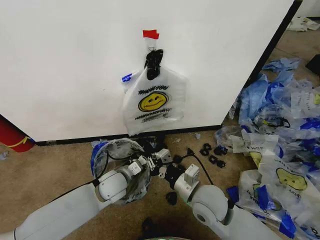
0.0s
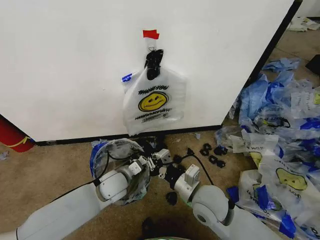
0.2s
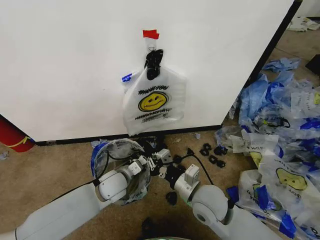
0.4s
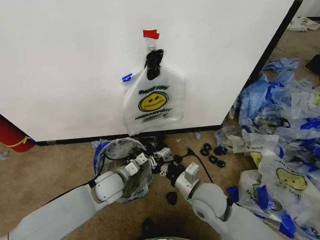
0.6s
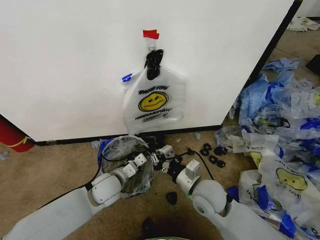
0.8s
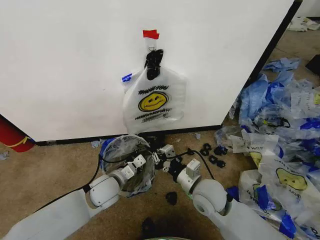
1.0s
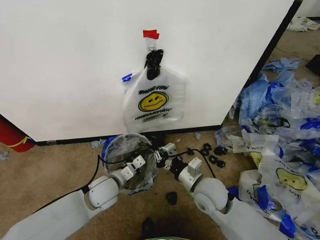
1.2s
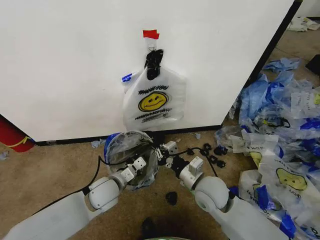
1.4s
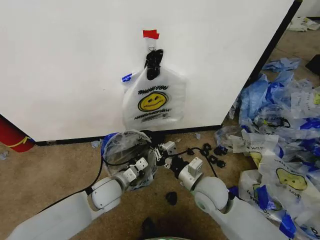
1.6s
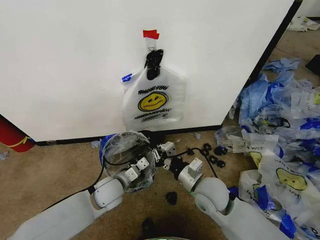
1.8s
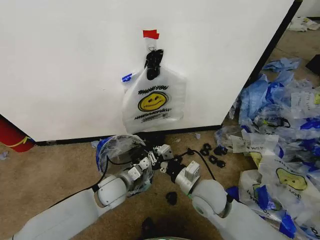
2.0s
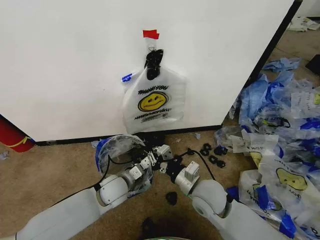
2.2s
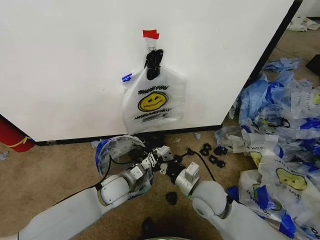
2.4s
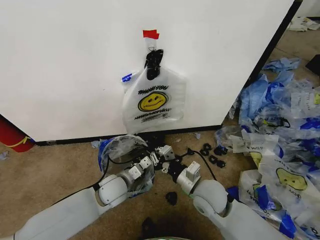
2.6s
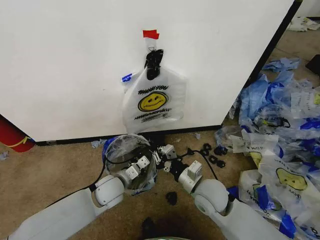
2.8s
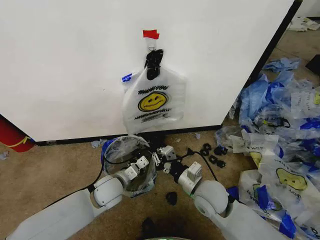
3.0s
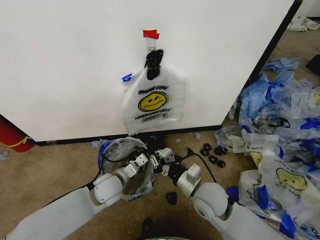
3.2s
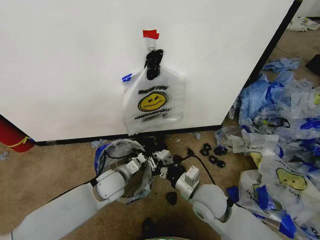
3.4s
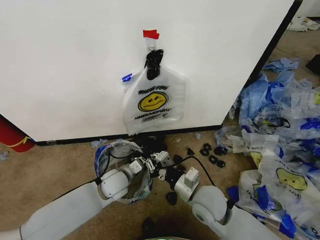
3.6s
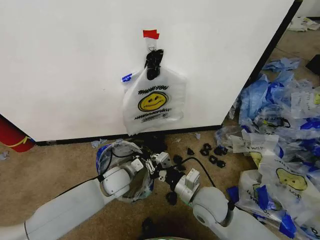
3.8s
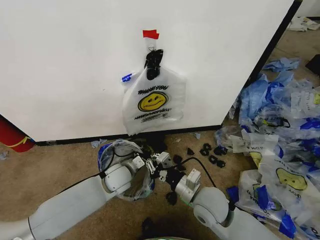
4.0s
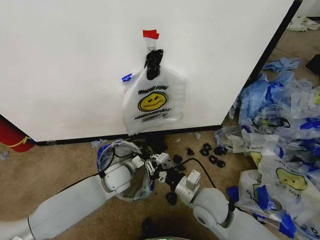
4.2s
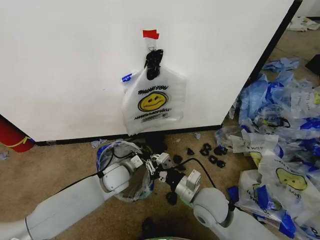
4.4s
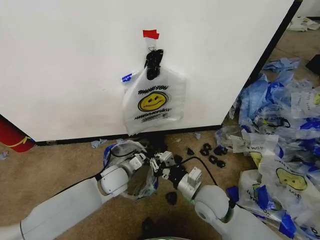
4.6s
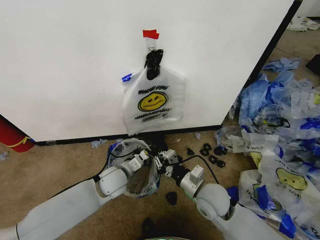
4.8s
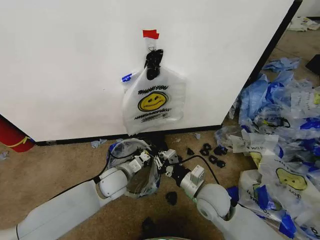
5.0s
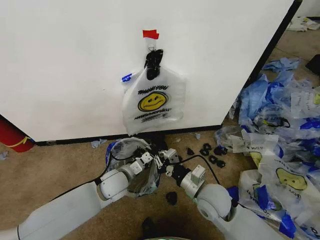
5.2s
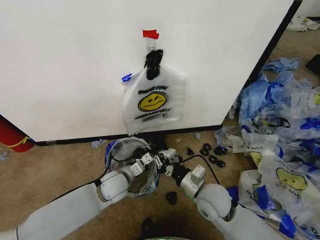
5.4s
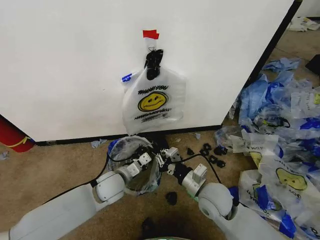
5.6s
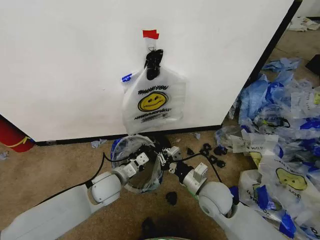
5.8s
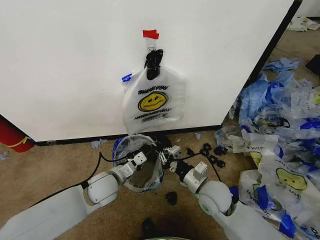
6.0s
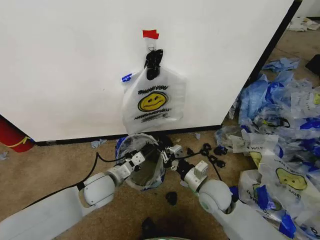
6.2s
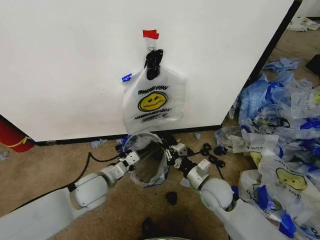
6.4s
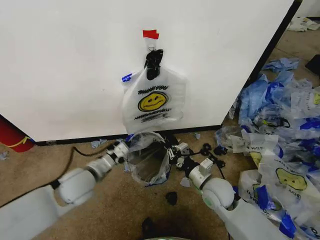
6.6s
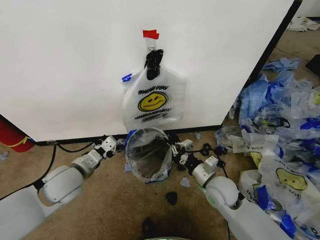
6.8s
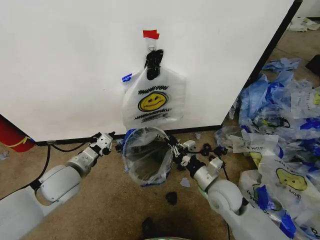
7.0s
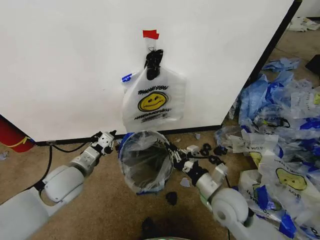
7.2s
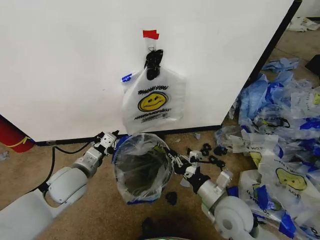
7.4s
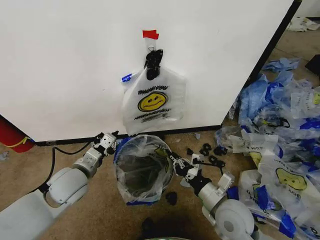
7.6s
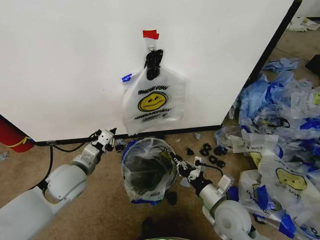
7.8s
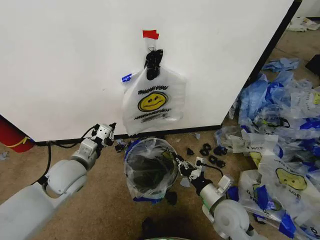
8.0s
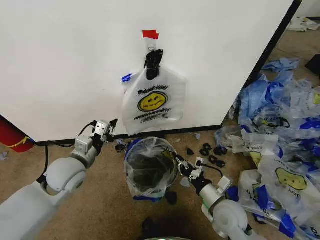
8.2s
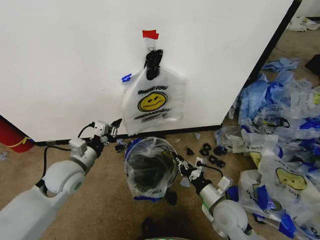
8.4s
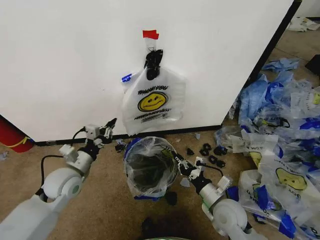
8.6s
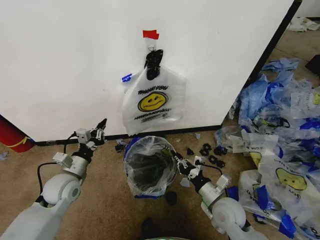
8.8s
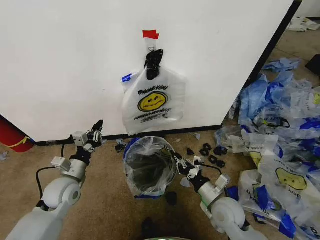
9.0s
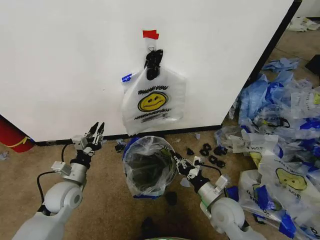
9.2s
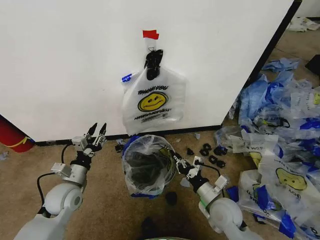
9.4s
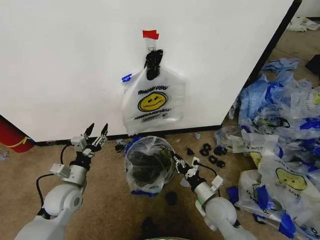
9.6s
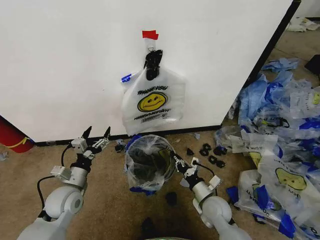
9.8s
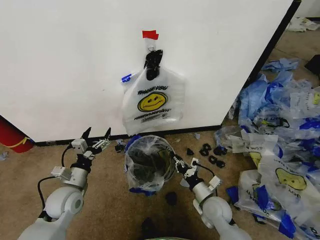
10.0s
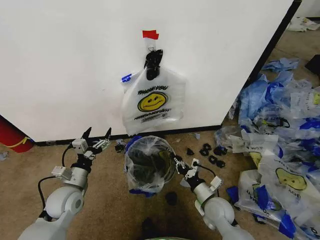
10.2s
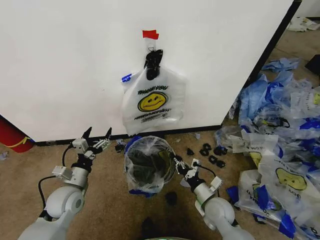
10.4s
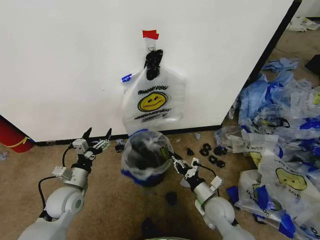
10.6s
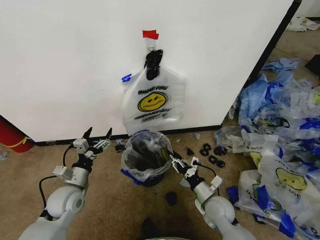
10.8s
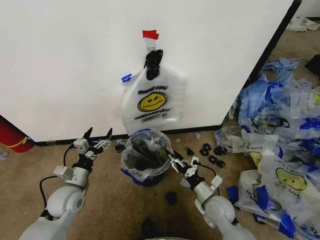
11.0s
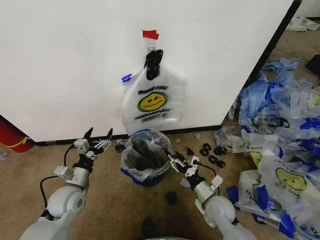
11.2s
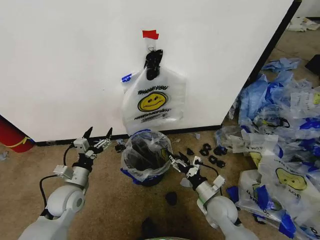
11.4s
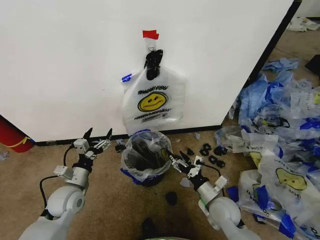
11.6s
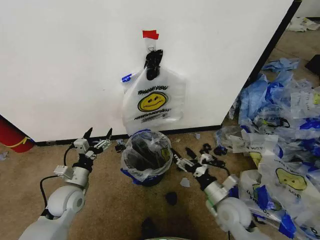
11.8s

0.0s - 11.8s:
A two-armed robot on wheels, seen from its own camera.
Task of the whole recording: Pick up the garbage bag from the wall and place it over the trash bin.
0.0s - 4.4s: The grippers move only a little.
4.4s - 6.0s: The left gripper moves approximately 5 cm.
6.0s - 7.4s: The right gripper moves backward, approximately 5 cm; the left gripper shifts roughly 10 cm to the left and upward.
7.4s - 8.8s: Both grippers travel together downward, about 5 cm.
8.8s - 10.4s: The left gripper opens. Meanwhile the right gripper shifts roughly 5 cm downward.
10.4s - 11.8s: The right gripper goes some 5 cm upward, and opens.

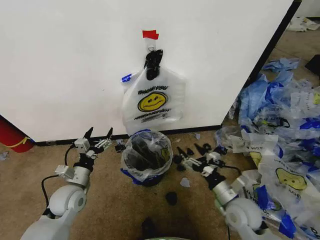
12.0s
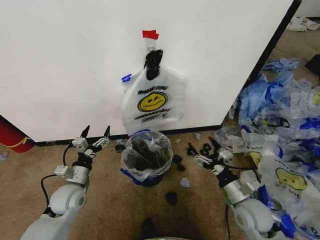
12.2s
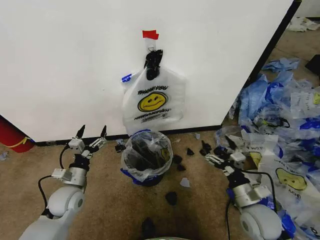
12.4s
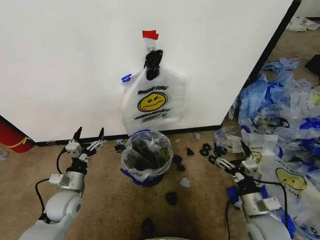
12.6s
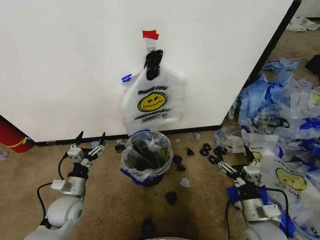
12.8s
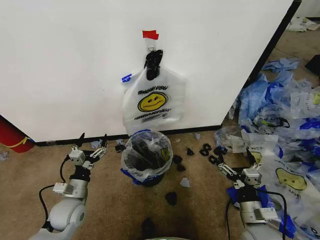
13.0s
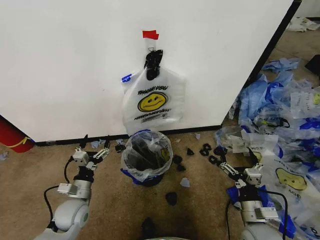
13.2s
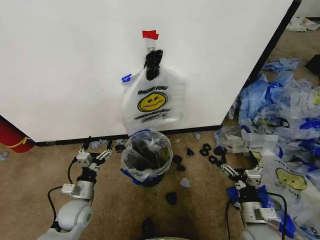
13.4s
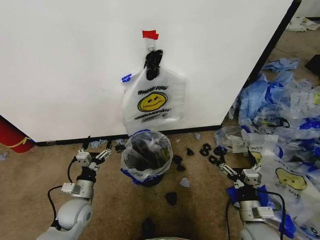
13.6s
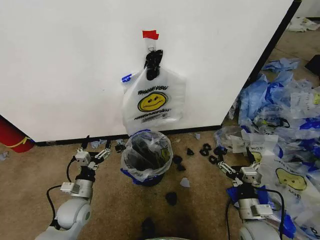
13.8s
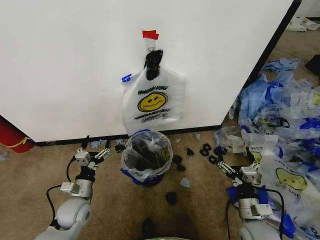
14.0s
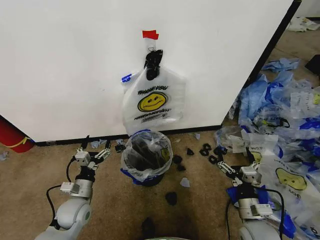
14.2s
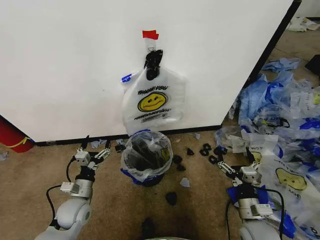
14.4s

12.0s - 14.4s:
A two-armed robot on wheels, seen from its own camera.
Task of the whole recording: Pick up the garbage bag from the wall and place it over the trash bin.
12.0s - 13.2s: The left gripper ends up about 5 cm from where it was, while the right gripper moves backward, roughly 5 cm.
13.2s - 14.4s: Both grippers stay about where they are.

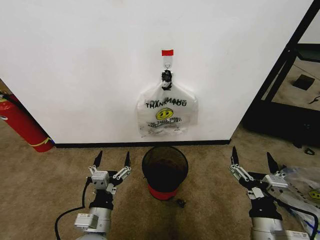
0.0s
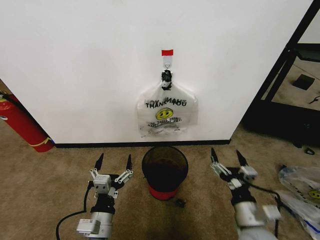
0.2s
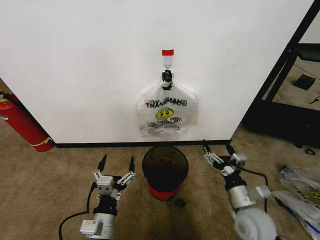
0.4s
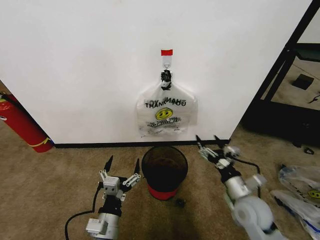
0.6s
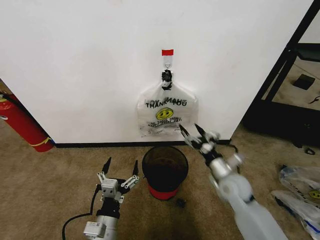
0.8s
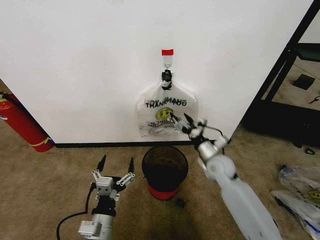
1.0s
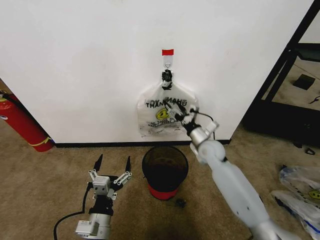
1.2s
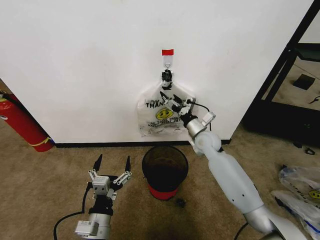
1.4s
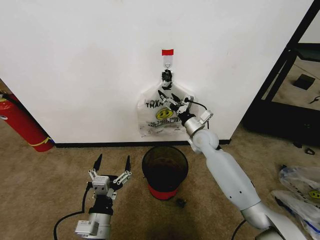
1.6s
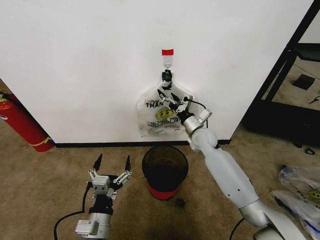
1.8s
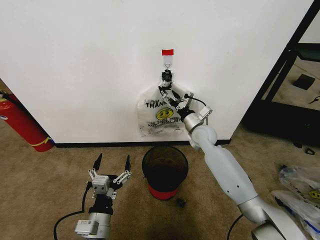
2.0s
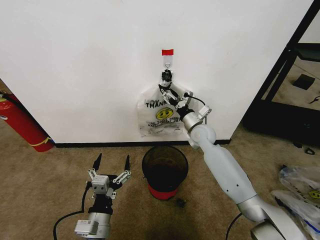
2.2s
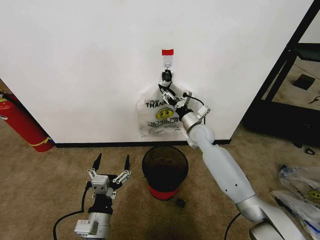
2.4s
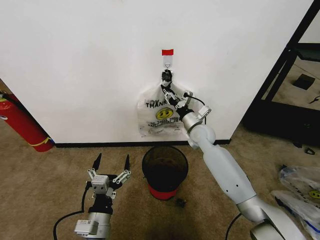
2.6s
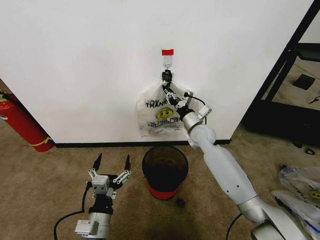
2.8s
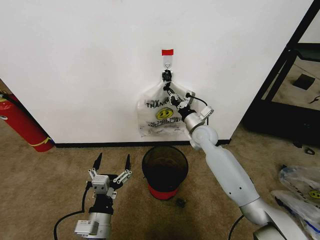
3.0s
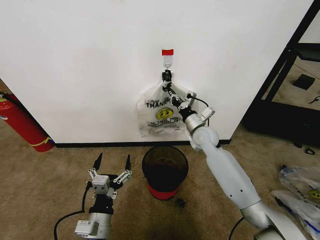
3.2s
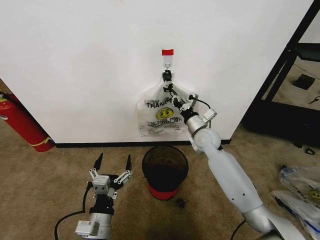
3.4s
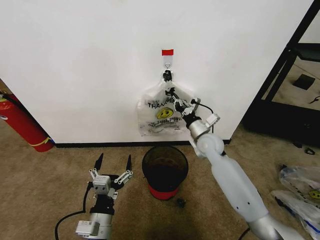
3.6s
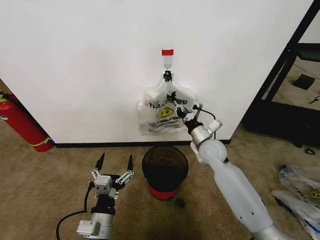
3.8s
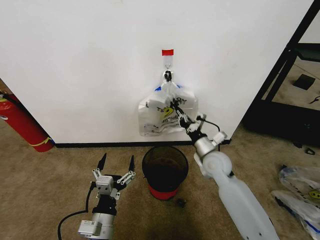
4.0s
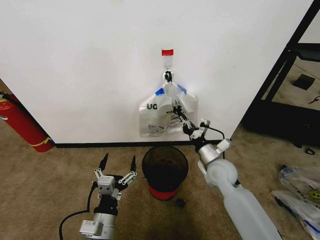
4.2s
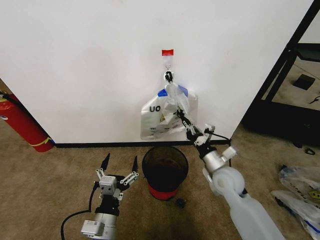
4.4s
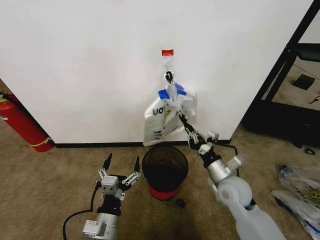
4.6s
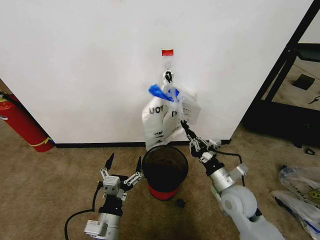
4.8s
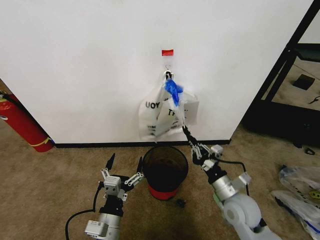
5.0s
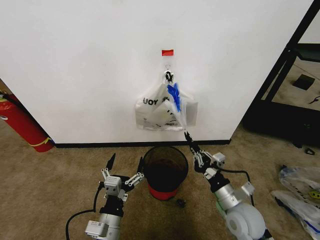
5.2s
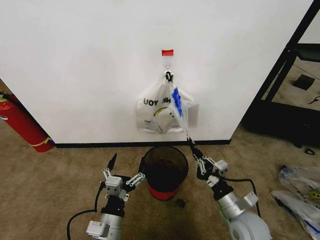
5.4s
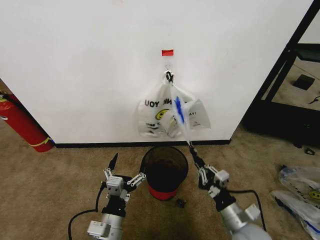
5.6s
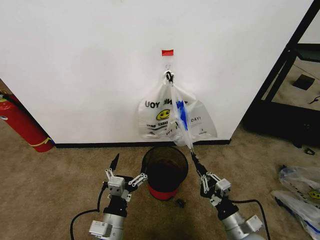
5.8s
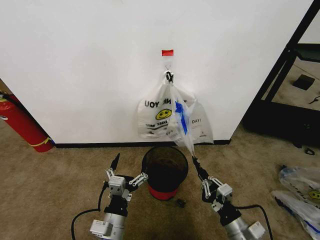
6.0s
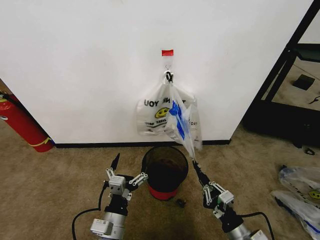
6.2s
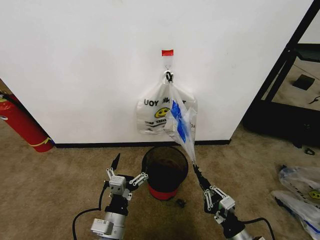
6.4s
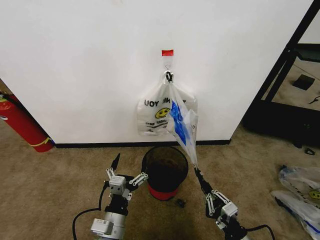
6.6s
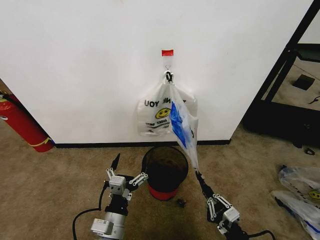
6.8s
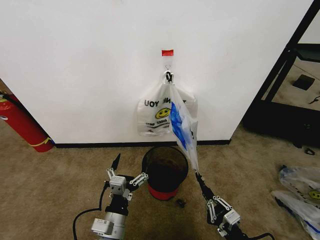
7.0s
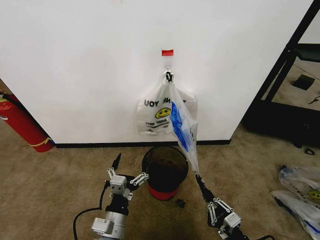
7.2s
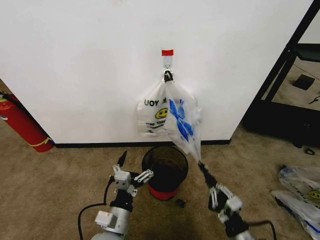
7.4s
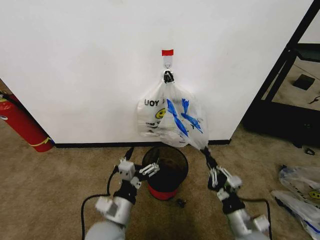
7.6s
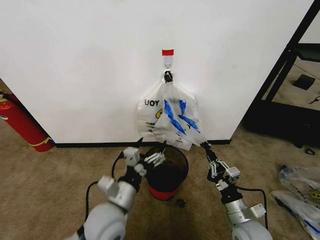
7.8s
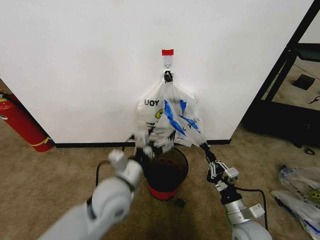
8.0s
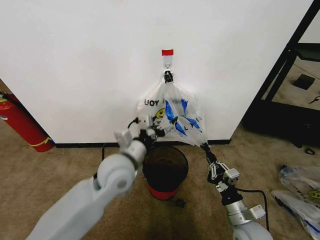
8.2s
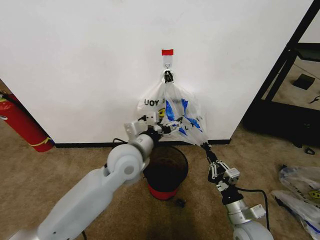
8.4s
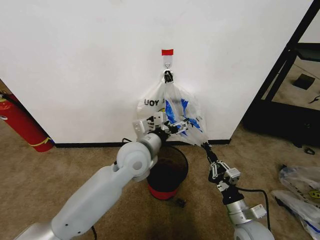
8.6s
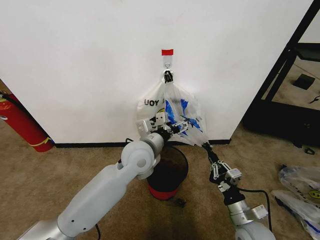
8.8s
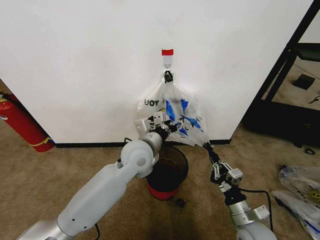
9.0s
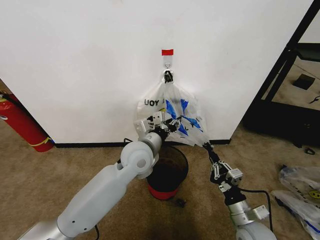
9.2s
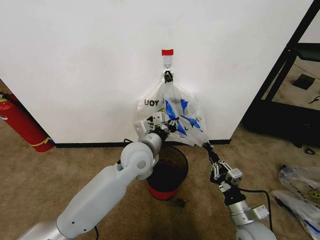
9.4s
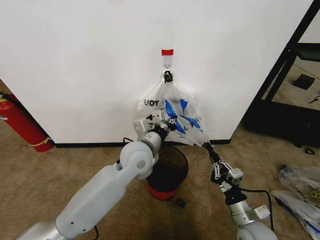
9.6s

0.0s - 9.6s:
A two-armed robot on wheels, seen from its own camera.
Task of the whole recording: Pick up the garbage bag from the wall and place it over the trash bin.
1.6s - 3.2s: The right gripper closes up.
3.2s - 4.8s: The right gripper shifts roughly 20 cm backward.
4.8s - 6.4s: The right gripper moves backward and downward, approximately 15 cm.
6.4s - 8.0s: The right gripper is displaced forward by roughly 5 cm. Meanwhile the left gripper heads upward and forward, covering approximately 15 cm.
8.0s - 9.6s: The left gripper goes some 10 cm forward and to the right, and closes.
